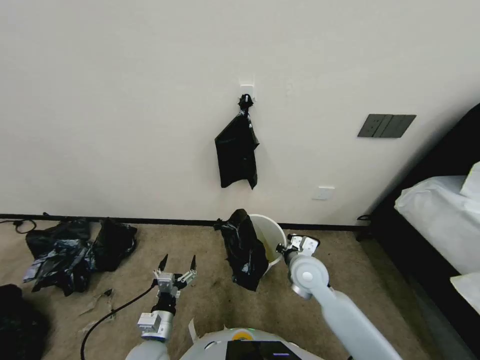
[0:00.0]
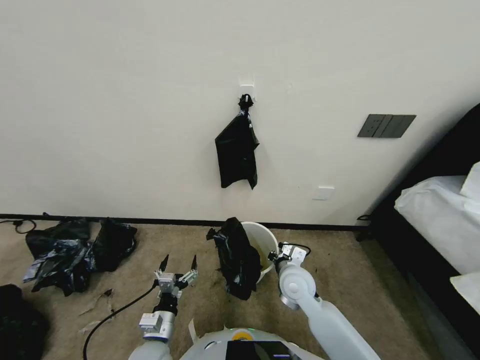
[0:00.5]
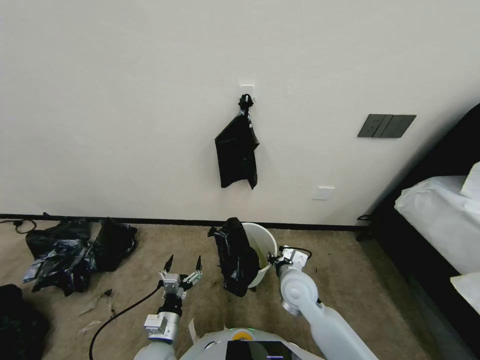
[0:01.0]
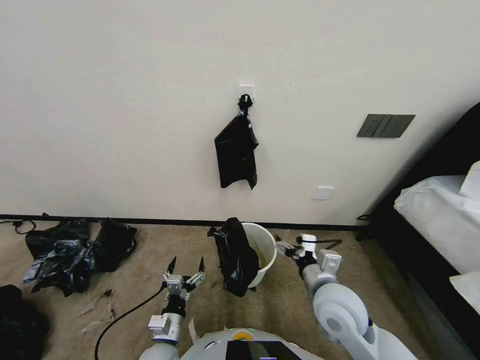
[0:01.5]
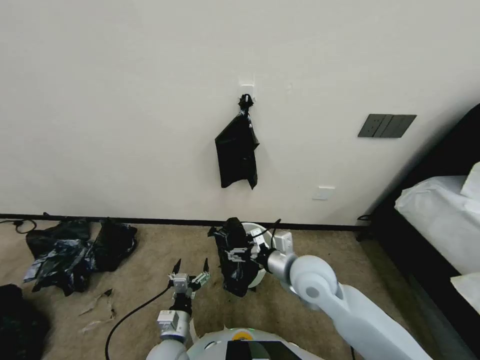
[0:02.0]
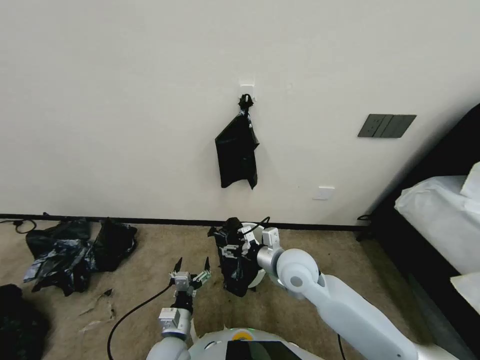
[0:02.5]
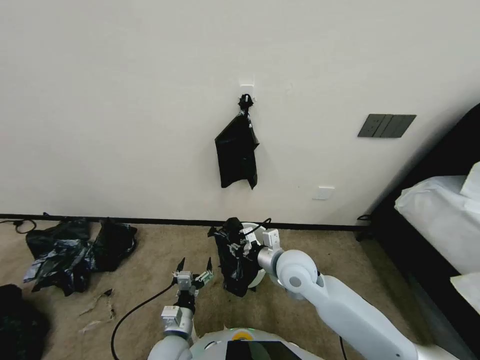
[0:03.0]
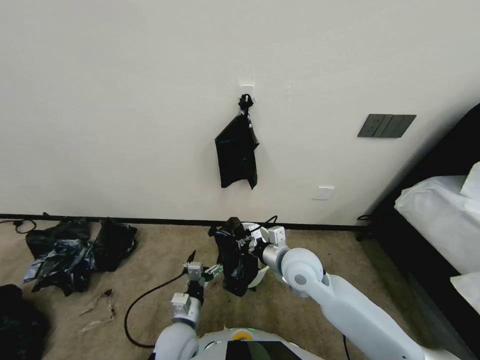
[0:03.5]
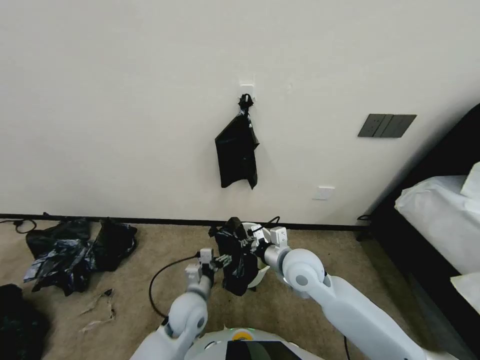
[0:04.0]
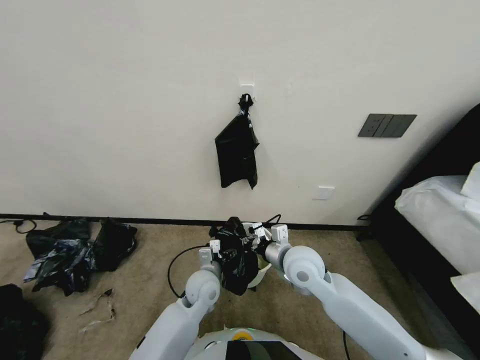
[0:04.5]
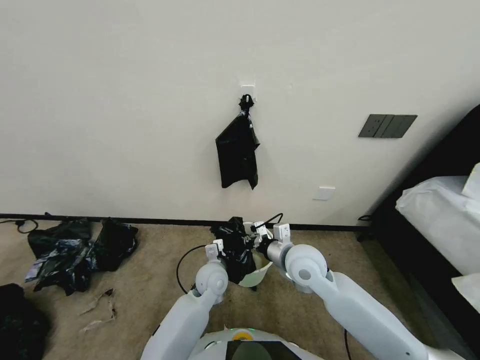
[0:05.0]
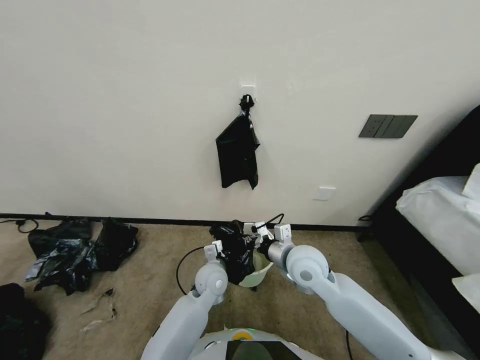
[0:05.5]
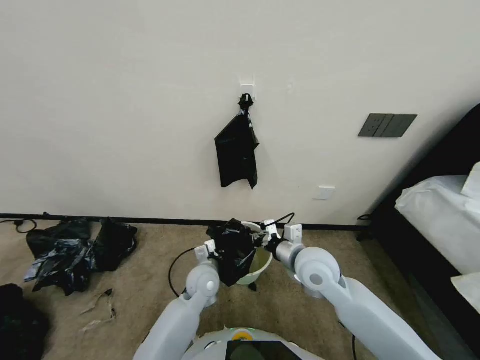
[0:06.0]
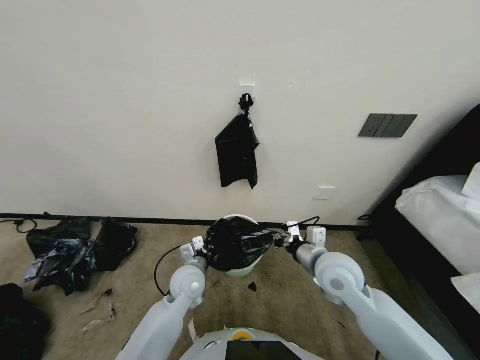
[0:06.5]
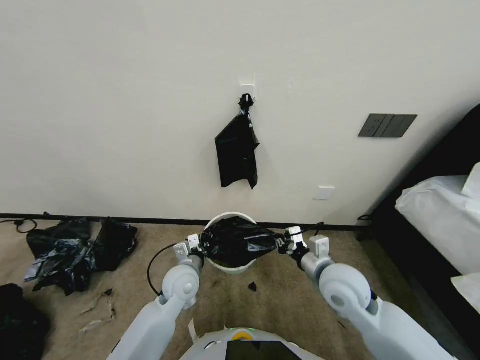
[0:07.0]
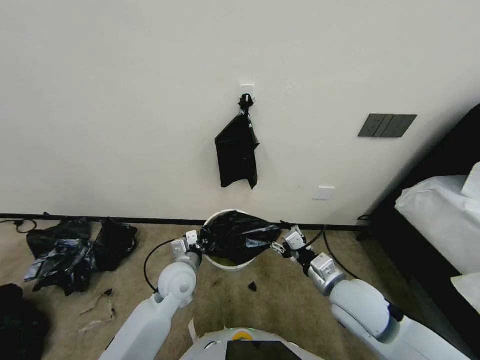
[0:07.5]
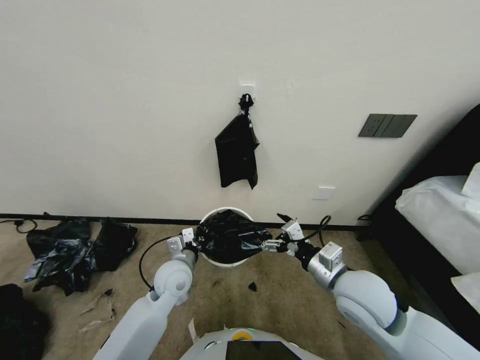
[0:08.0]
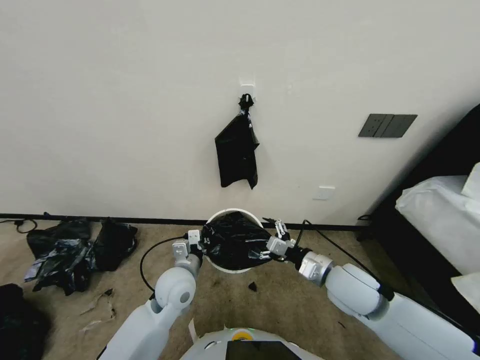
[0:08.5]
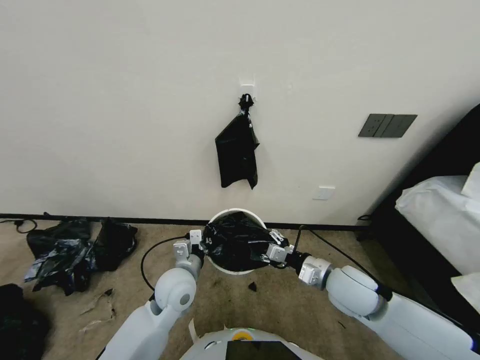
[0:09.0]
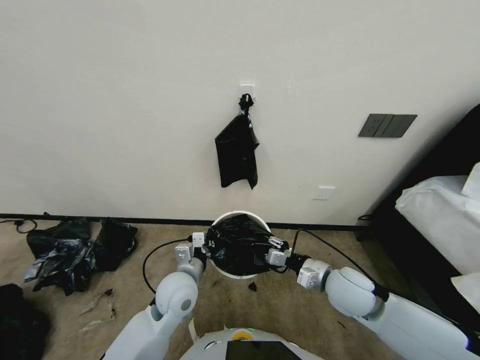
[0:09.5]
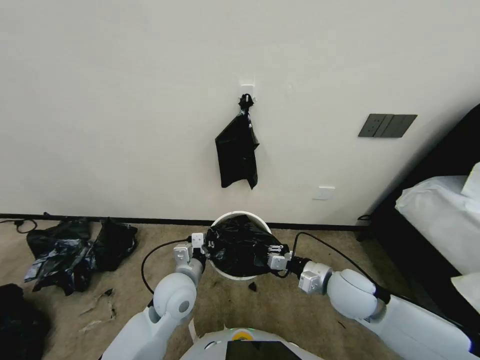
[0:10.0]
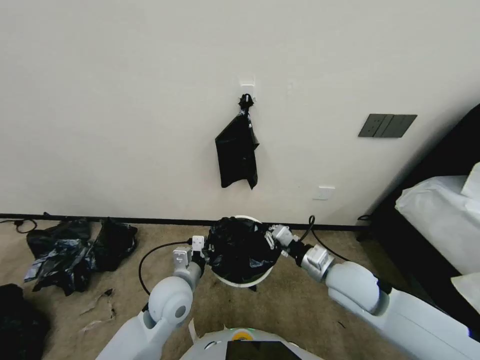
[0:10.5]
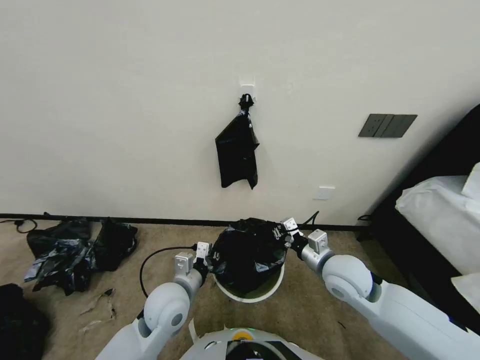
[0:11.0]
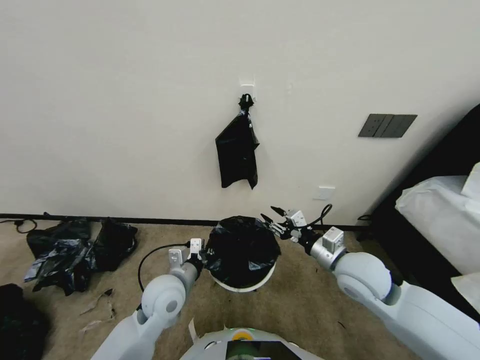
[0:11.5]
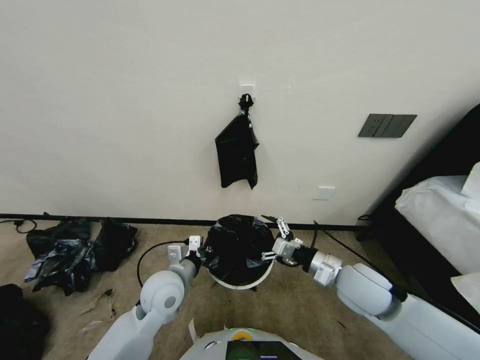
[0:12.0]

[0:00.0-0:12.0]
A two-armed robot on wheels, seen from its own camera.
Task of the whole recording: Place a trash bag onto the trash bin.
0:00.0 to 0:02.0: The right gripper goes some 10 cm upward and backward, and opens up.
0:02.0 to 0:04.0: The left gripper moves forward, about 10 cm. The right gripper ends up about 5 cm from where it was, and closes its fingers.
0:04.0 to 0:06.0: The left gripper heads forward, covering some 10 cm, and closes up.
0:06.0 to 0:08.0: The left gripper heads to the left and upward, covering approximately 10 cm; the right gripper goes about 10 cm backward and to the right, and opens up.
0:08.0 to 0:10.0: The right gripper moves downward, approximately 5 cm, and closes up. Meanwhile the left gripper shifts by about 5 cm.
0:10.0 to 0:12.0: The right gripper opens up.

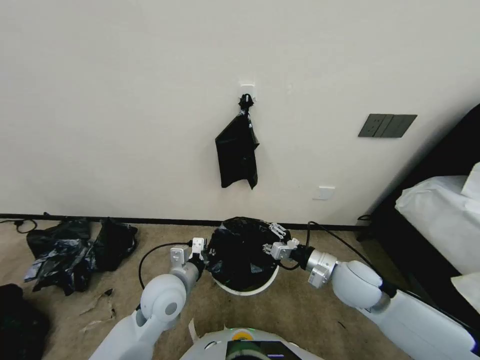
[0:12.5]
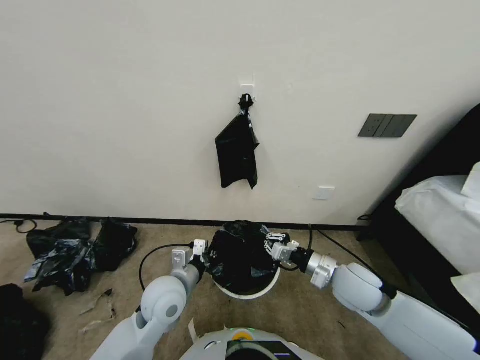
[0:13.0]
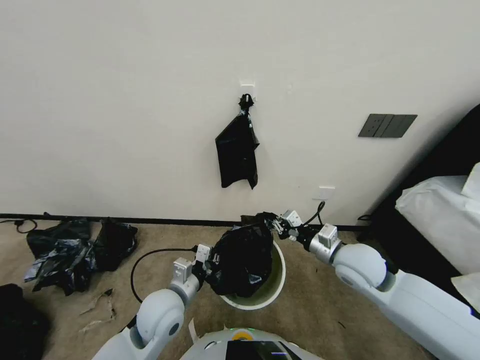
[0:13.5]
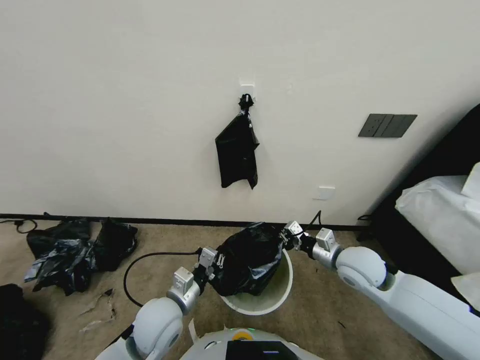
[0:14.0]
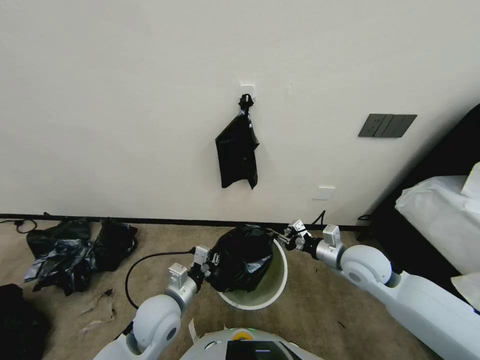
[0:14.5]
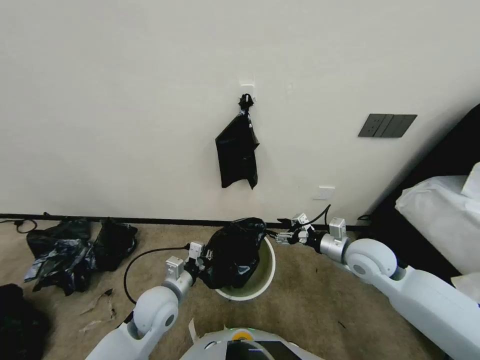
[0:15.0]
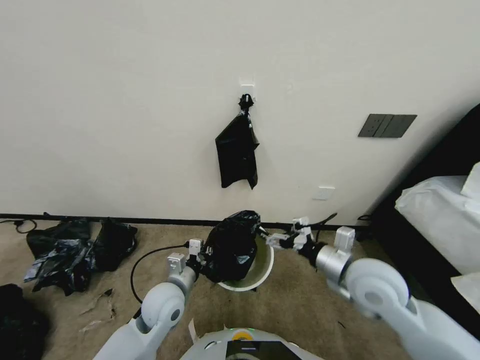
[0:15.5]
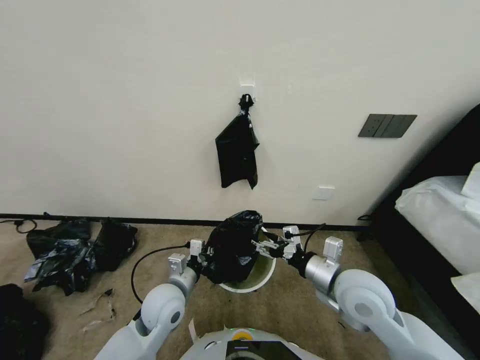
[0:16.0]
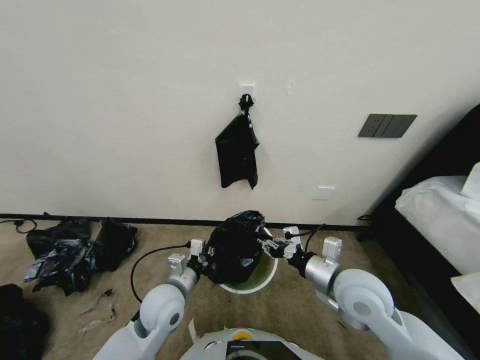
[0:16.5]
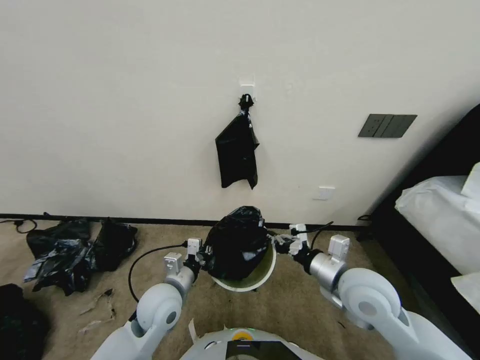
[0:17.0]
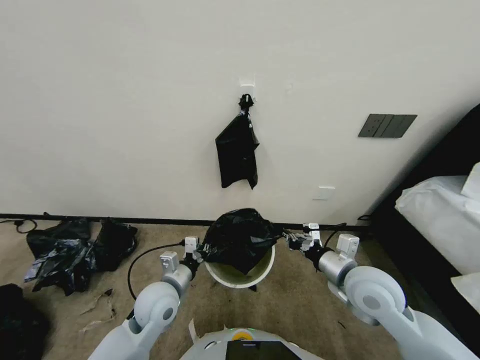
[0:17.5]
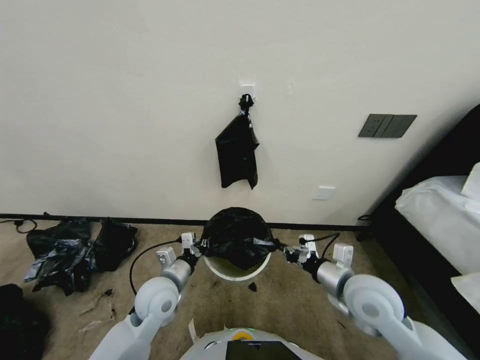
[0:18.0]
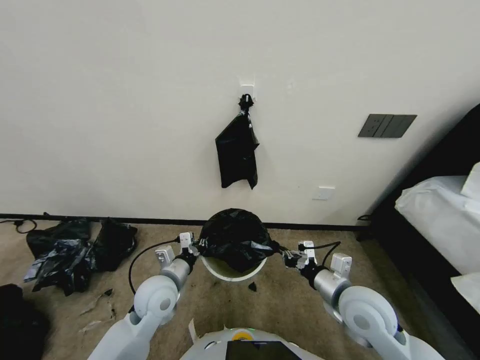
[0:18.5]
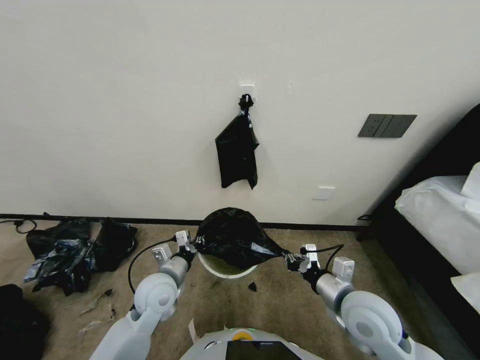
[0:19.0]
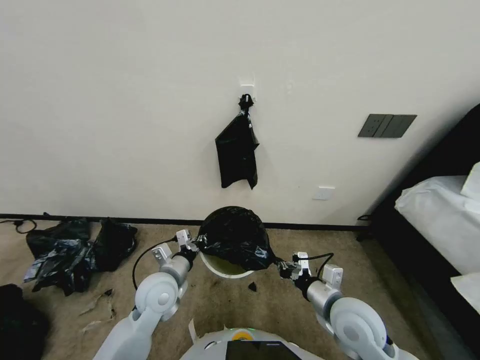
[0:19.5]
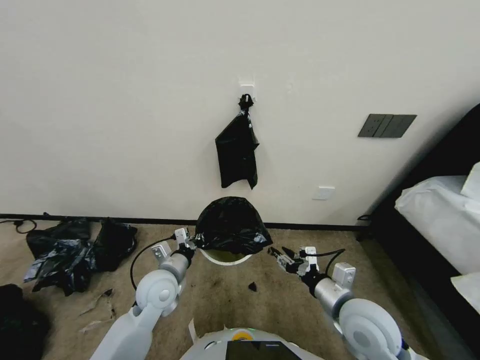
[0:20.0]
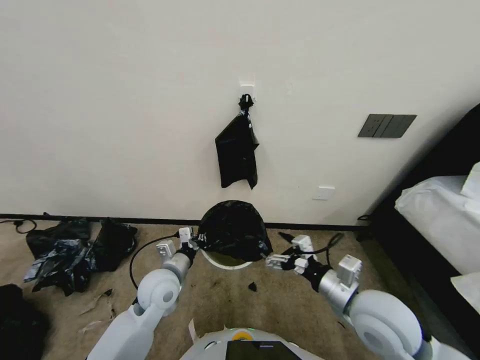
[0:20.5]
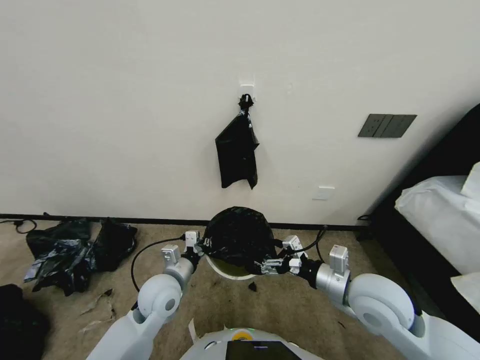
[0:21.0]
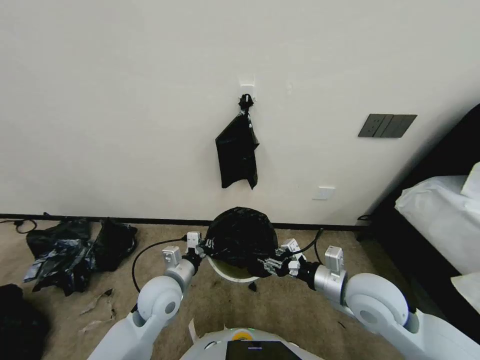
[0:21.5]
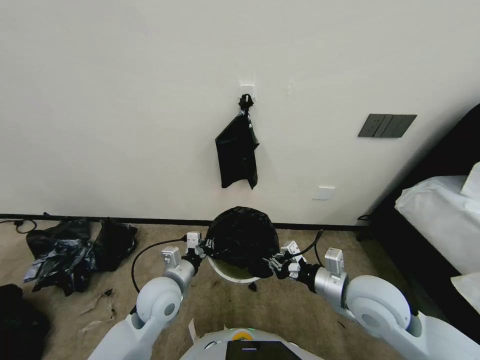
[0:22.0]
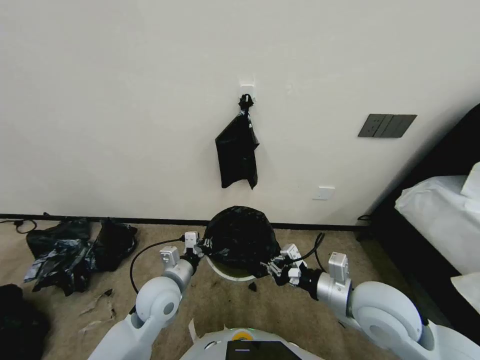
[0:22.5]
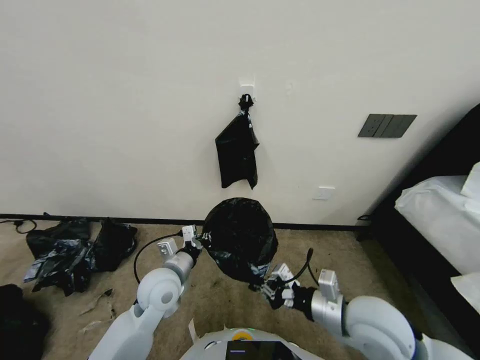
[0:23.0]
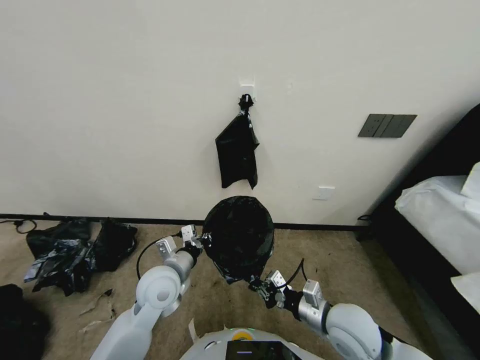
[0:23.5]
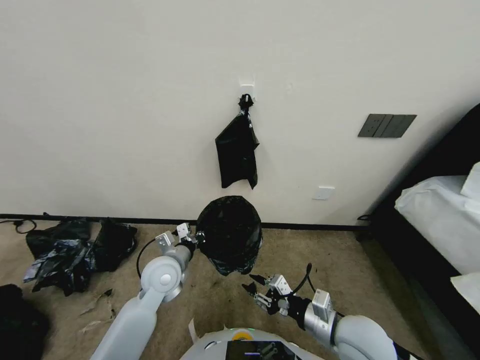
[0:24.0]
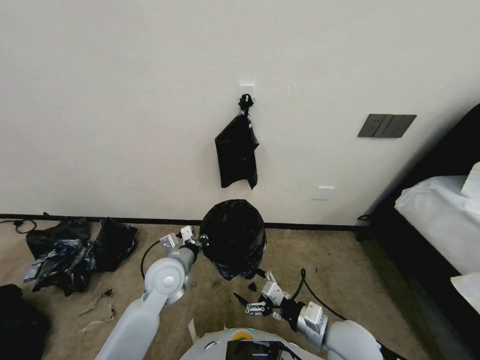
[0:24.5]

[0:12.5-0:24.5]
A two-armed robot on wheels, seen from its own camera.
Task of the whole recording: Place a trash bag onto the trash bin.
0:12.5 to 0:14.5: The left gripper ends up some 5 cm from where it was; the right gripper changes place by roughly 5 cm, and closes its fingers.
0:14.5 to 0:16.5: The right gripper travels backward and to the left by roughly 10 cm, and opens, then closes once more.
0:16.5 to 0:18.5: The right gripper moves roughly 5 cm, and closes.
0:18.5 to 0:20.5: The right gripper opens up.
0:20.5 to 0:22.5: The right gripper closes its fingers.
0:22.5 to 0:24.5: The left gripper travels forward by roughly 5 cm. Meanwhile the right gripper is displaced downward and backward by approximately 10 cm, and opens its fingers.

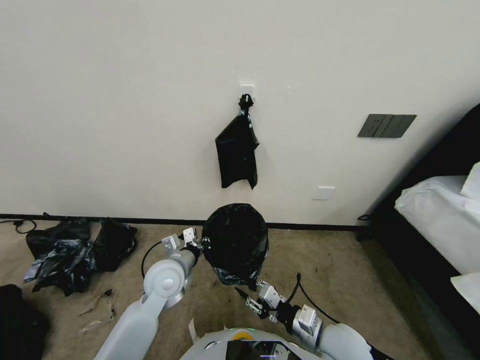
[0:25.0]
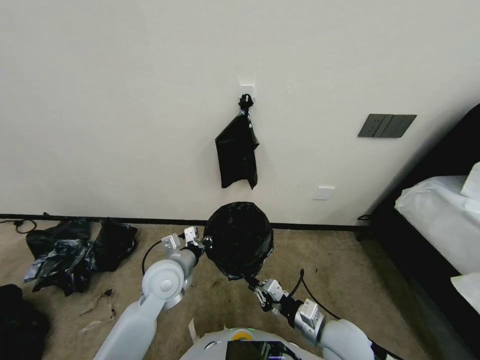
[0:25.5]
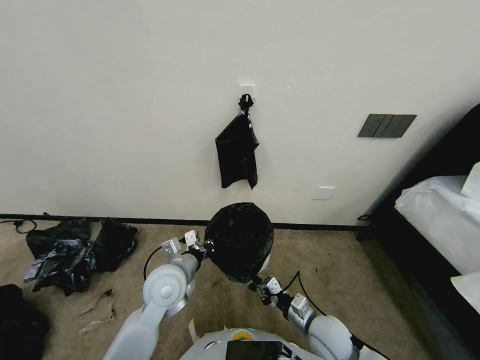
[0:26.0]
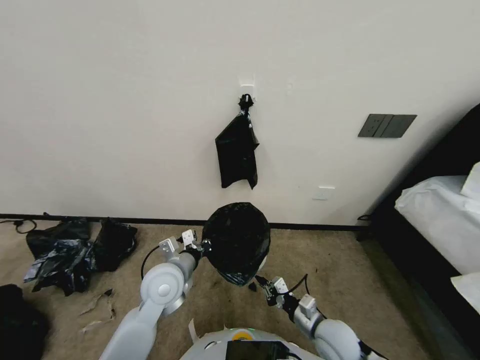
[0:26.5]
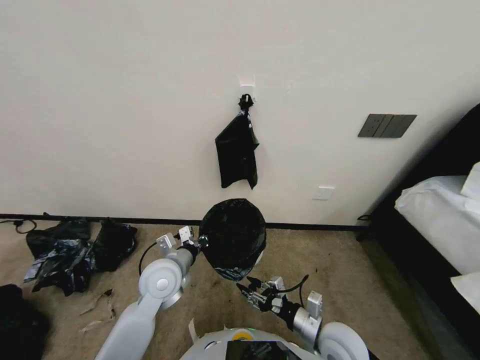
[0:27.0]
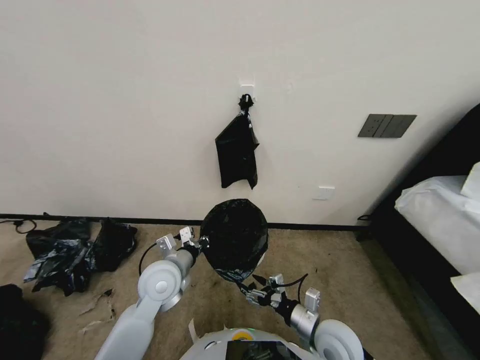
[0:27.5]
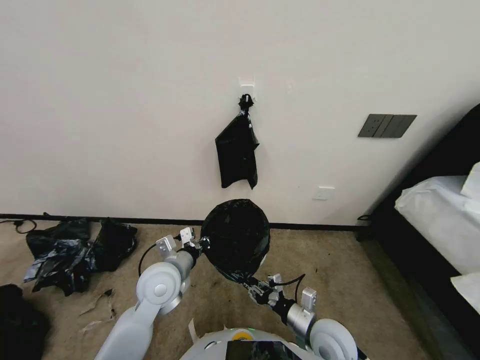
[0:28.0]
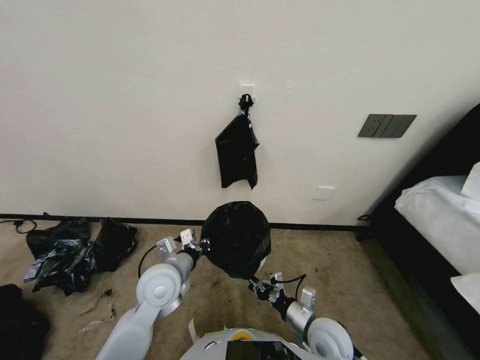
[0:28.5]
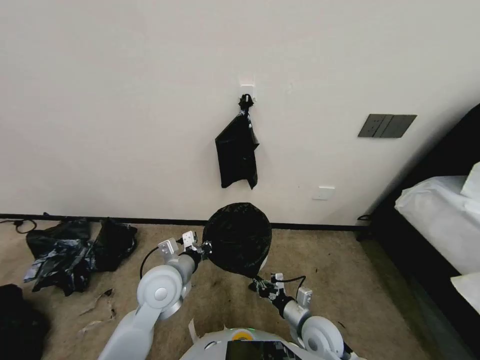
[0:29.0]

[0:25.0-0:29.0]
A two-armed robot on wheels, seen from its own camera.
Task of the whole recording: Place a trash bag onto the trash bin.
0:25.0 to 0:27.0: The right gripper travels downward and back again, some 10 cm each way, and closes, then reopens.
0:27.0 to 0:29.0: The right gripper goes some 5 cm downward, and closes its fingers.
